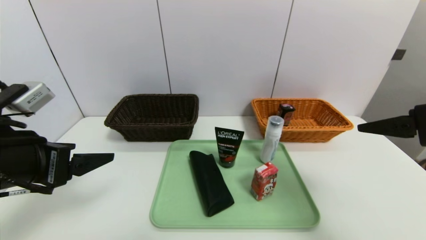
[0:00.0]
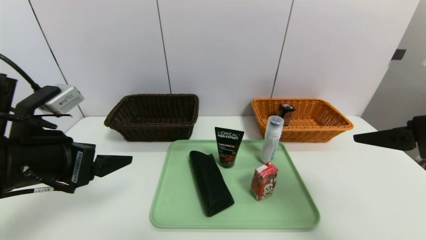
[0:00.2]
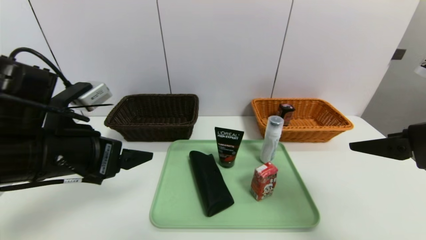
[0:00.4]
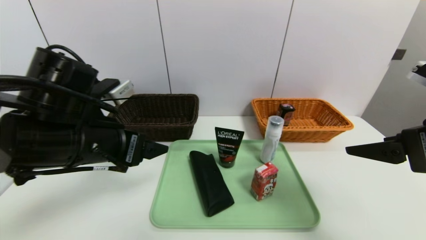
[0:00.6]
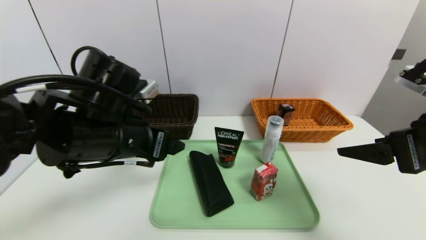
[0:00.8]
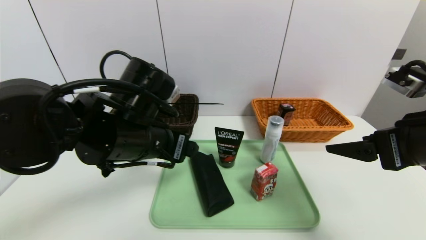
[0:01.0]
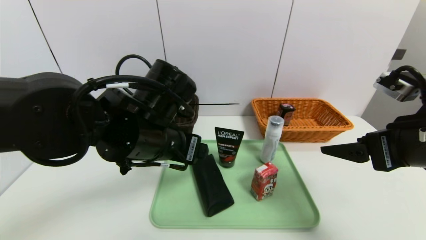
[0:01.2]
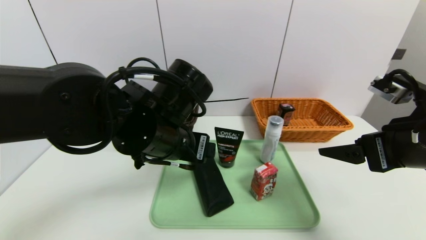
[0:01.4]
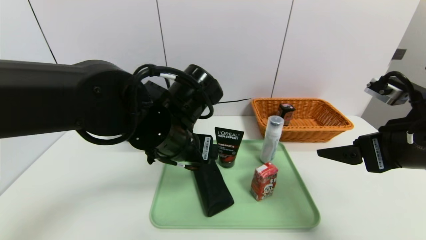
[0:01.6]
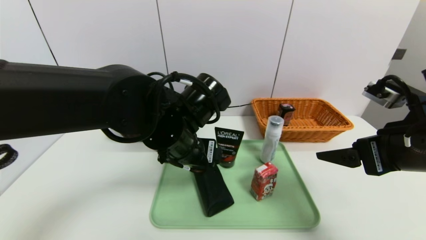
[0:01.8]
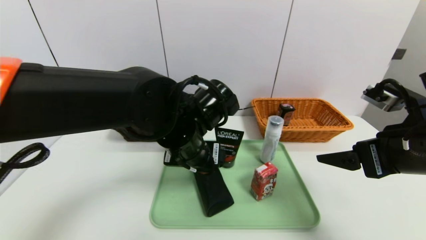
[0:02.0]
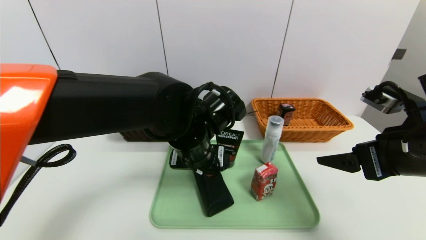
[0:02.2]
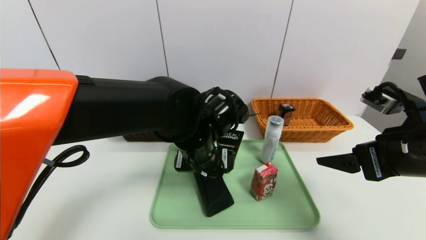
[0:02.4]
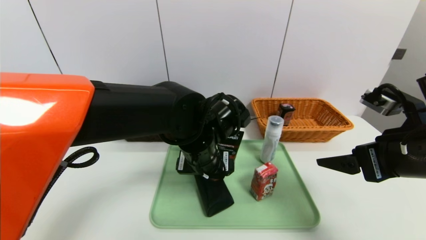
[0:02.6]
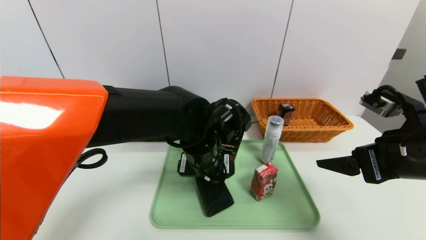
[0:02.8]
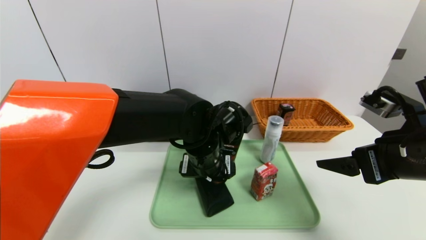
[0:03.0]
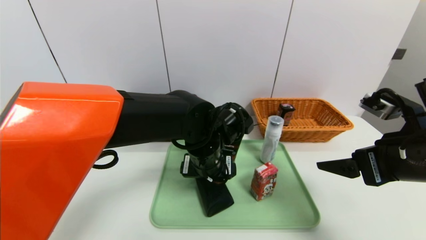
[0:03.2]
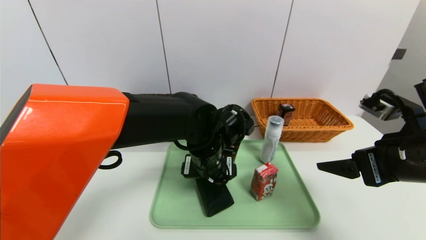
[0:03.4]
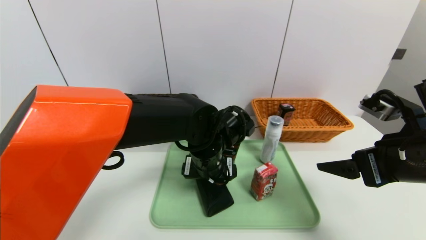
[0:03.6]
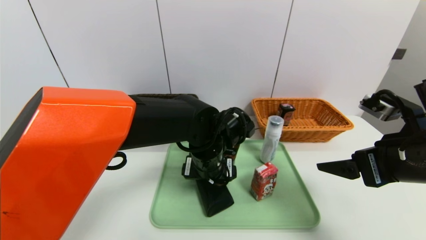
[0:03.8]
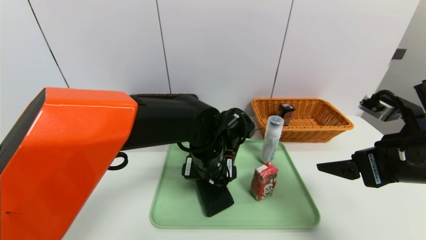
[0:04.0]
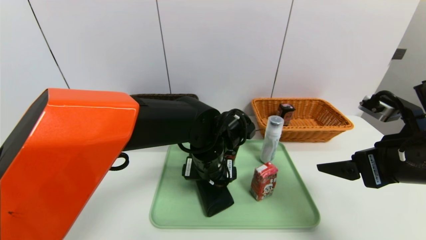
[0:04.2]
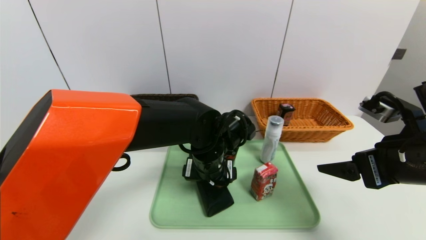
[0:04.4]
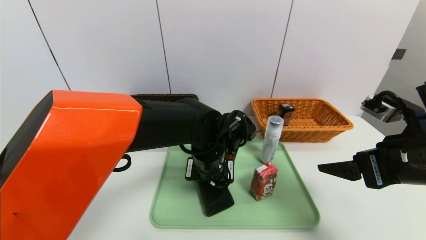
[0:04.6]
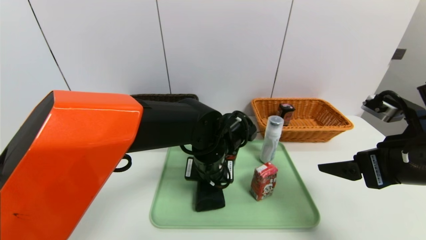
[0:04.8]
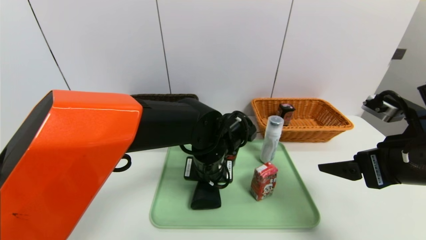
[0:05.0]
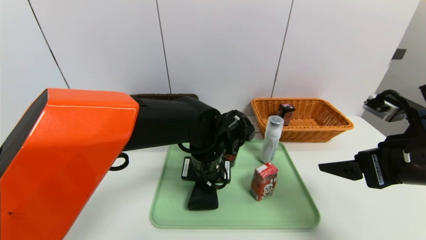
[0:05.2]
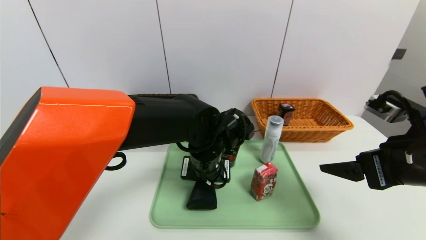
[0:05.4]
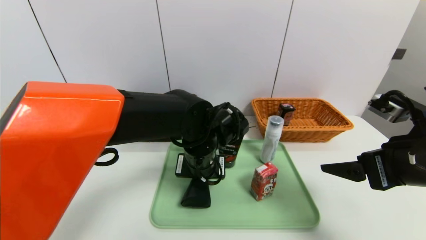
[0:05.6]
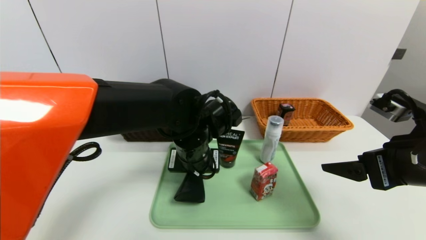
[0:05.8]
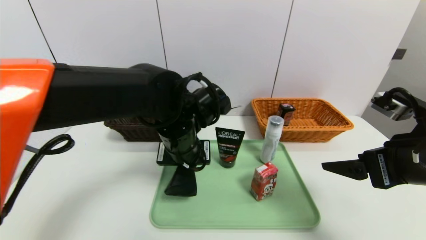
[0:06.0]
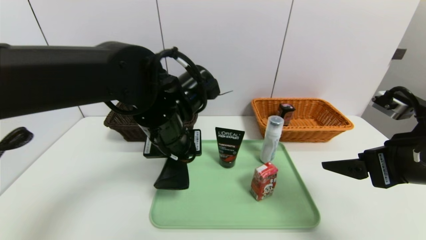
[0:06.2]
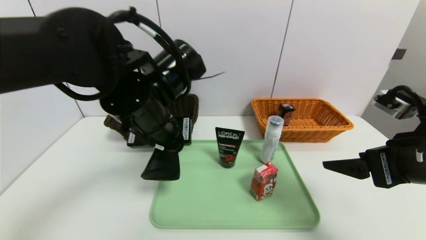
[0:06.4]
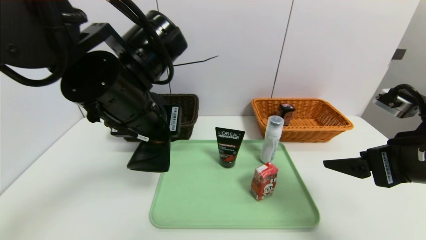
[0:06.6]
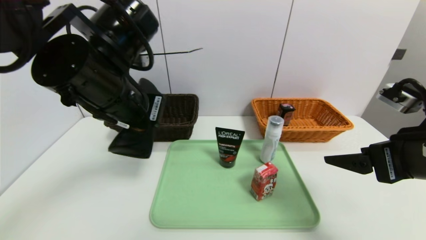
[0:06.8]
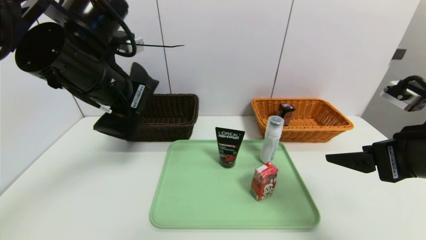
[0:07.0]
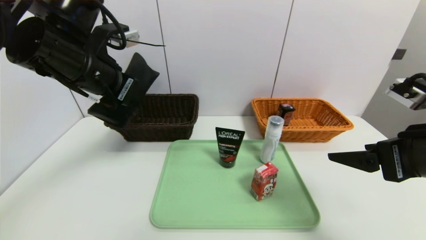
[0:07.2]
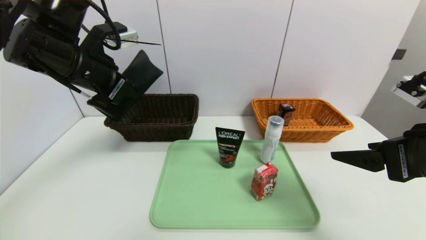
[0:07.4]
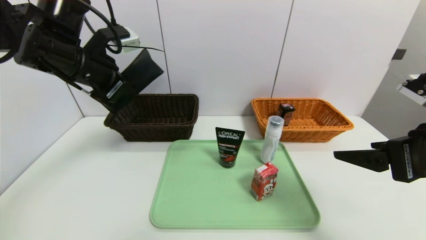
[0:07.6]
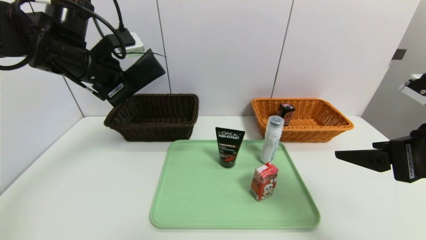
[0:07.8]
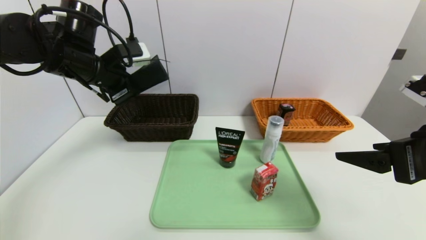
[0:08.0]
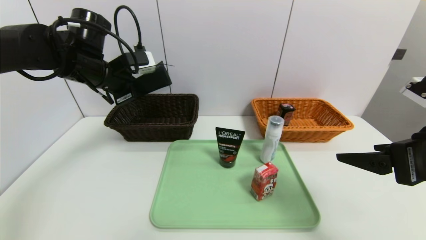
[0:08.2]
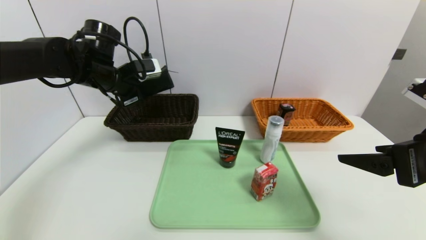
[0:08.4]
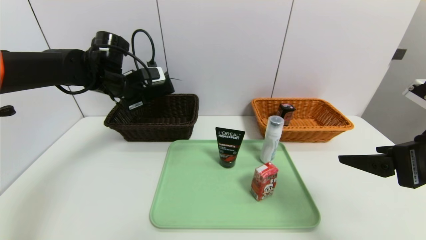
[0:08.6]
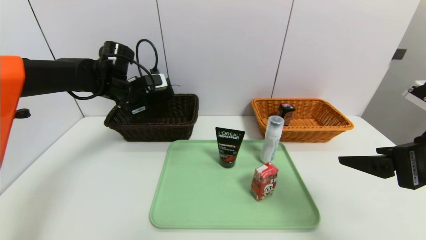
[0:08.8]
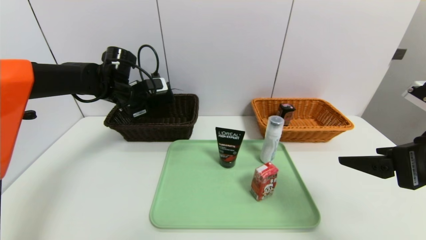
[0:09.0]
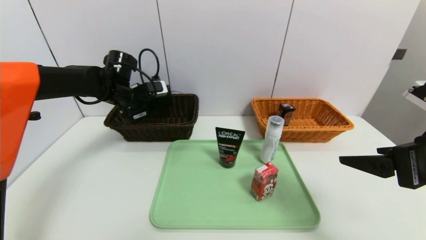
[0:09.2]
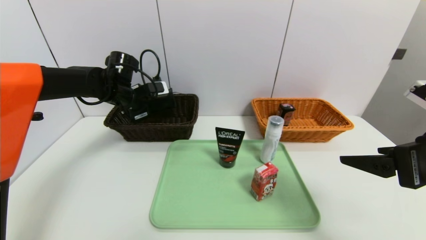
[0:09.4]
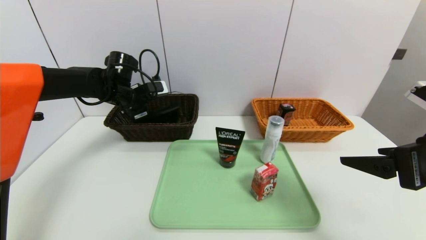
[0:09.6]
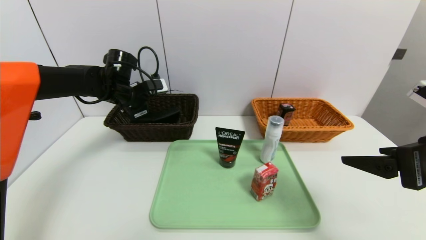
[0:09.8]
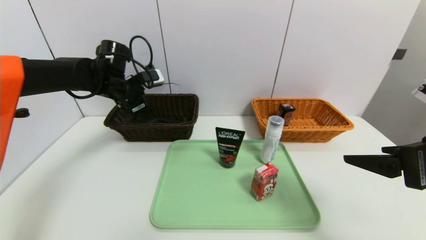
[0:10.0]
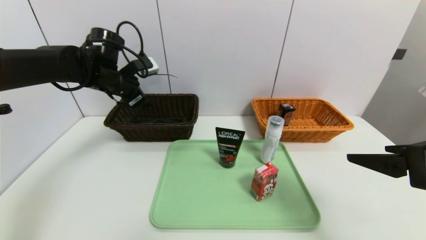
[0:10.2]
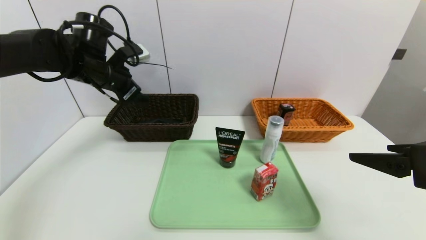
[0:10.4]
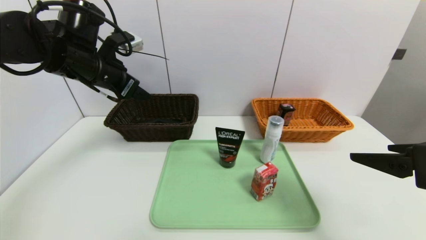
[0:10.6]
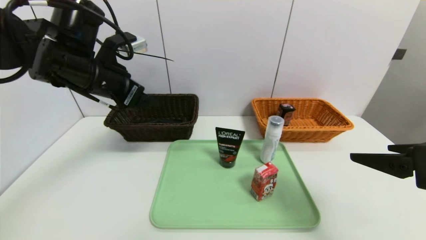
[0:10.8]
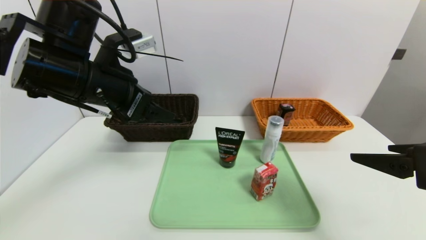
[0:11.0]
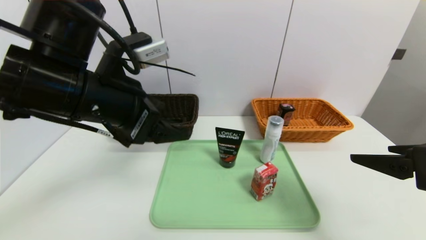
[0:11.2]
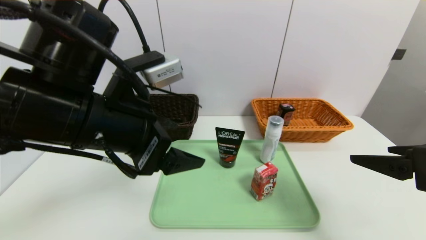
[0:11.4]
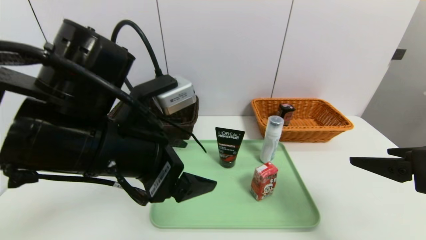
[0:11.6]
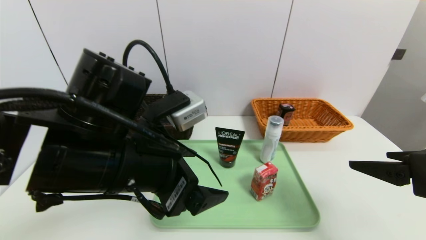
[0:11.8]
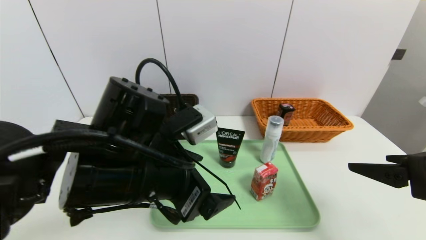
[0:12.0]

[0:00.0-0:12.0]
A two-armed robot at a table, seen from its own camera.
Task of the whole recording: place the food in the right basket with the right gripper, and place the non food items in the left basket with the left gripper.
Step, 0:00.0 to 0:10.0: Grasp the glasses case and put it in the left basket.
0:00.0 to 0:01.6: The right gripper moves some 5 cm; the left gripper goes some 20 cm to the right and forward.
0:01.6 to 0:03.0: The left gripper goes about 10 cm downward and to the right.
0:03.0 to 0:04.4: The grippers stay close to where they were, moving slightly.
0:04.4 to 0:06.0: The left gripper goes approximately 10 cm upward and to the left, and closes.
0:06.0 to 0:07.6: The left gripper shifts approximately 20 cm to the left and upward.
0:07.6 to 0:09.0: The left gripper travels forward and downward by roughly 15 cm.
0:09.0 to 0:10.4: The left gripper heads upward, covering roughly 5 cm, and opens.
0:10.4 to 0:12.0: The left gripper goes about 25 cm backward and to the right.

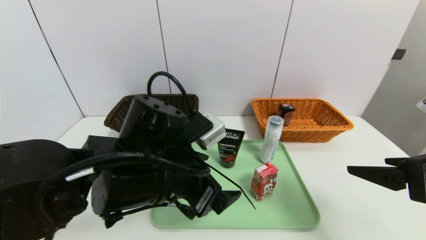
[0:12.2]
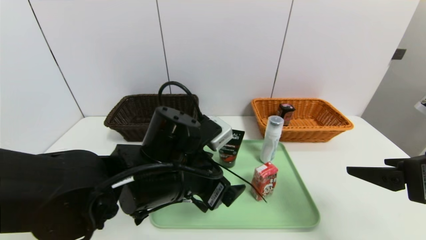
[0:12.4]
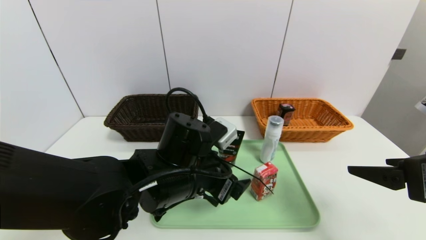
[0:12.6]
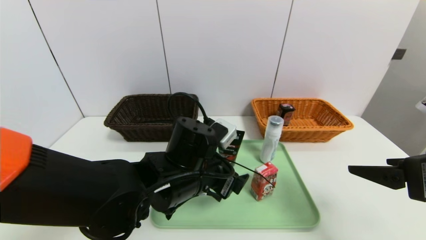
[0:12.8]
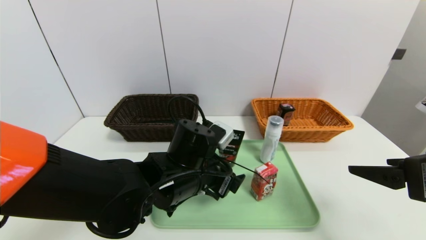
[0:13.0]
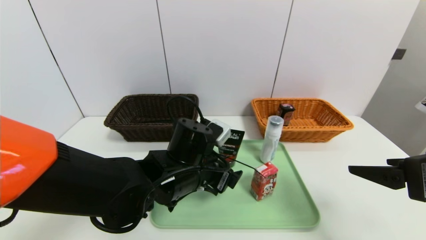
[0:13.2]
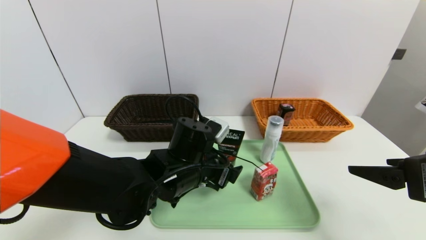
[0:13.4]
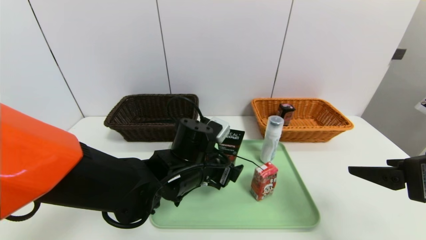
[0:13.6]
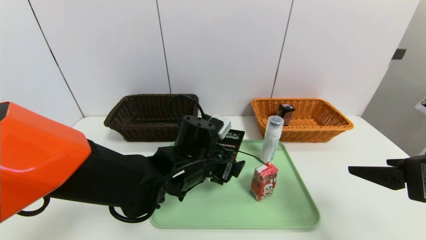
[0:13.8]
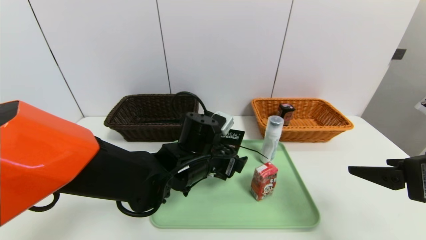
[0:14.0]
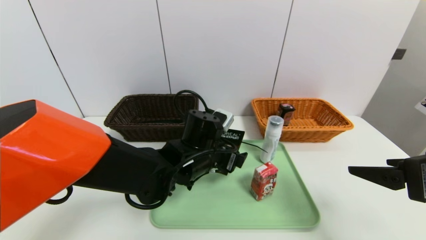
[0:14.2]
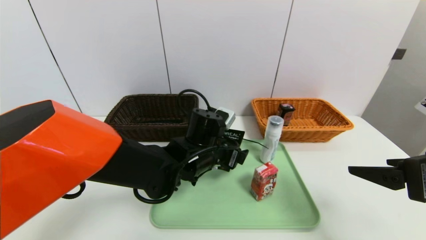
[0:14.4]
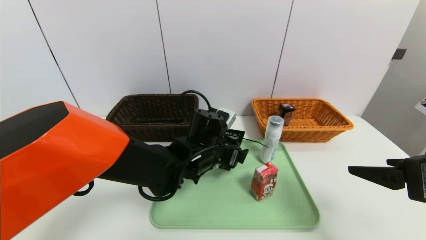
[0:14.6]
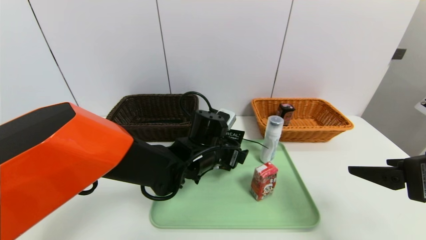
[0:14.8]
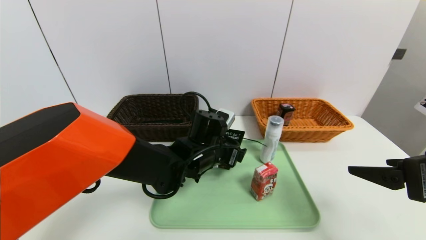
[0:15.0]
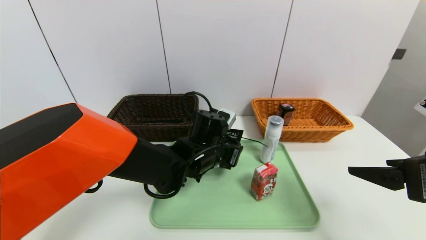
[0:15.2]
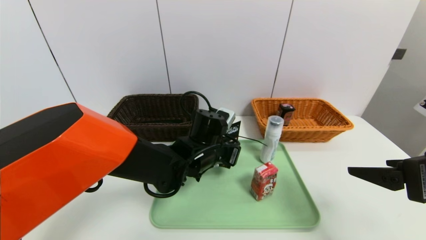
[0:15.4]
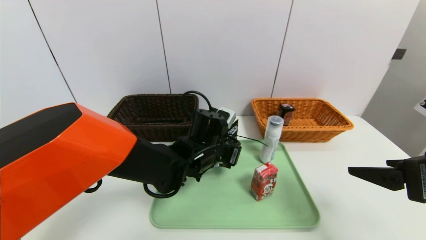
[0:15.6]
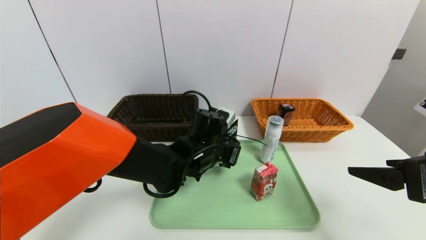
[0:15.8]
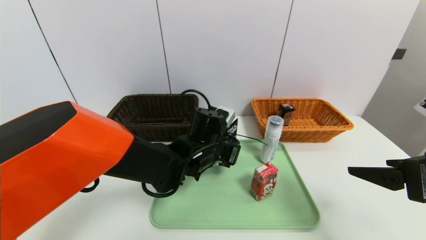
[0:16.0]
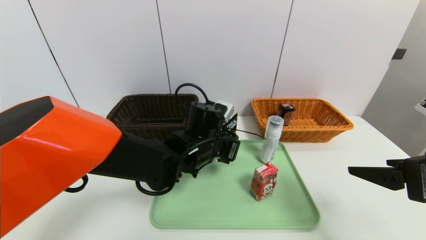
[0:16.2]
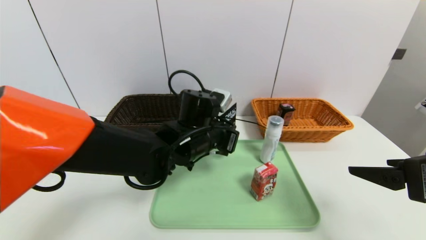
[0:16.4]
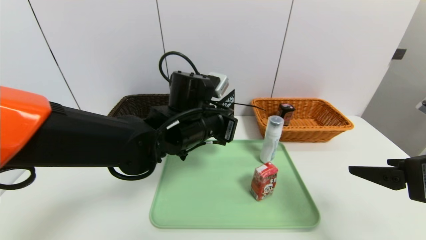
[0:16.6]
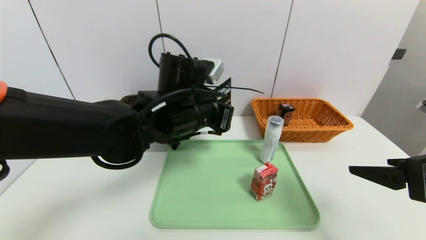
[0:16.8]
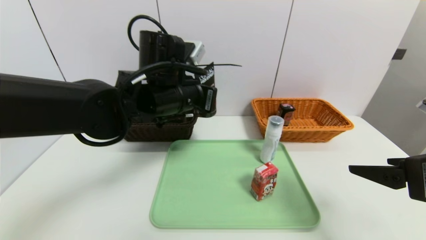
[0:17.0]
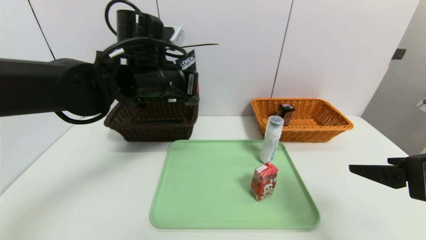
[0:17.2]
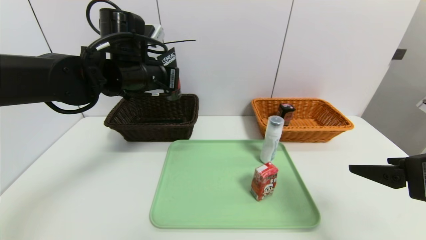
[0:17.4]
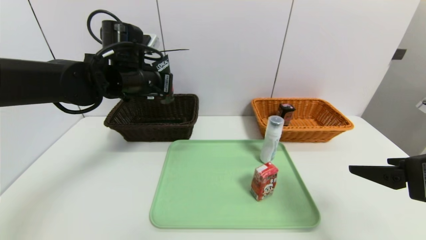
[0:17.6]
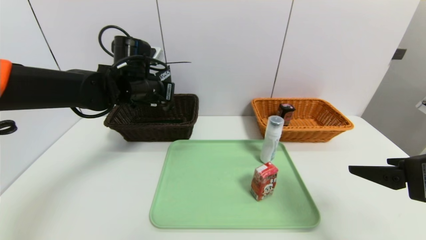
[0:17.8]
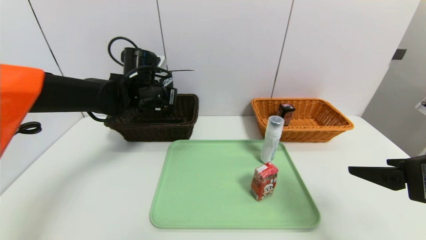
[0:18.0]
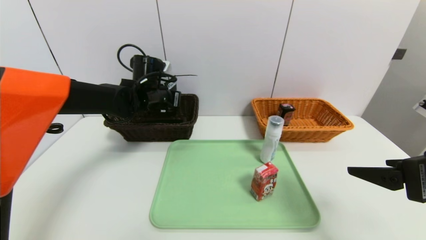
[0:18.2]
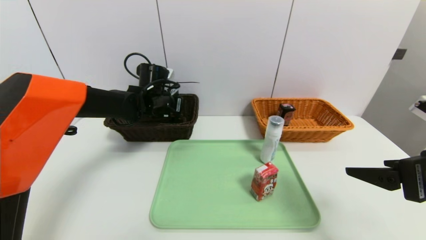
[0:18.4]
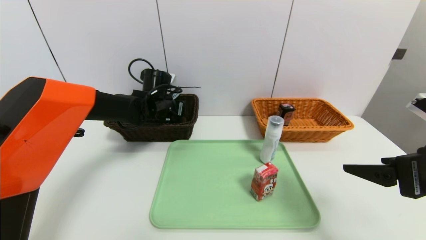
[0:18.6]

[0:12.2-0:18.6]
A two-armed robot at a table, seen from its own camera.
Task of the whole recording: place the food in the right basket with the right gripper, and place the non food items in the left basket with the left gripper.
0:12.2 to 0:13.8: The left gripper moves forward and downward, some 10 cm.
0:13.8 to 0:15.4: The left gripper changes place by roughly 5 cm, and closes.
0:15.4 to 0:17.0: The left gripper is displaced upward and to the left by about 15 cm.
0:17.0 to 0:18.6: The left gripper travels forward, downward and to the left by roughly 20 cm.
